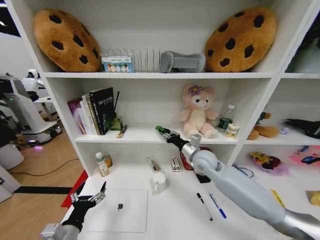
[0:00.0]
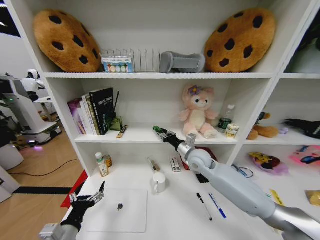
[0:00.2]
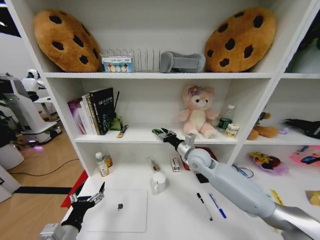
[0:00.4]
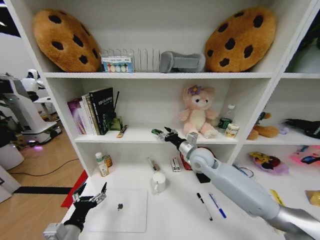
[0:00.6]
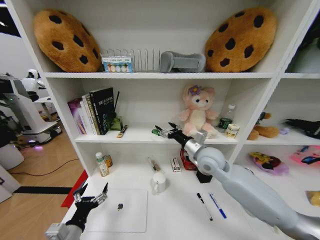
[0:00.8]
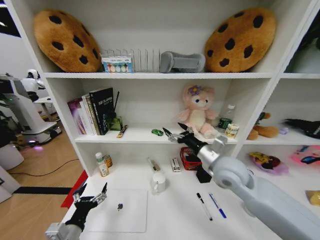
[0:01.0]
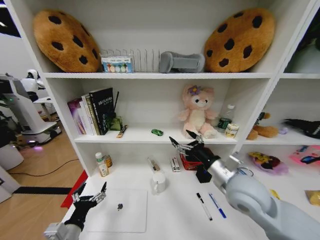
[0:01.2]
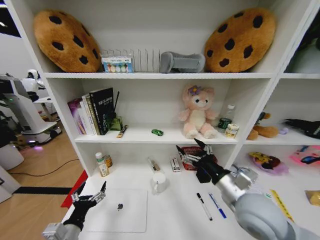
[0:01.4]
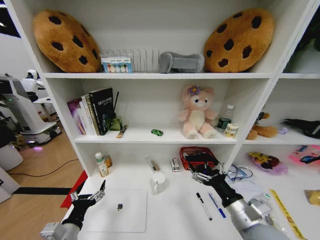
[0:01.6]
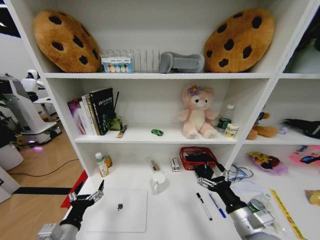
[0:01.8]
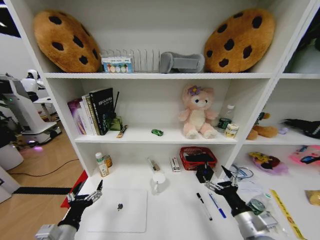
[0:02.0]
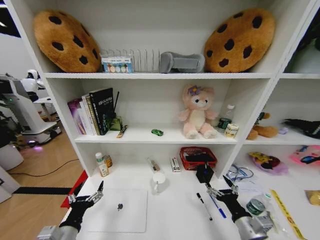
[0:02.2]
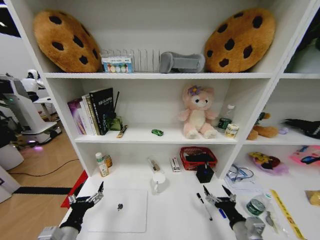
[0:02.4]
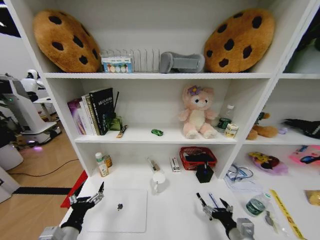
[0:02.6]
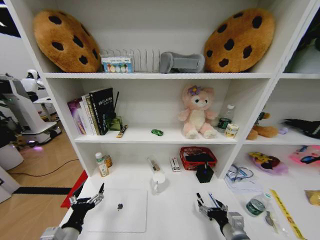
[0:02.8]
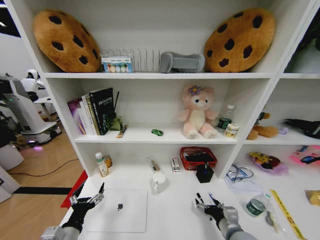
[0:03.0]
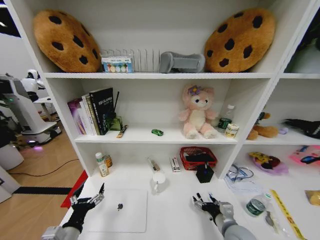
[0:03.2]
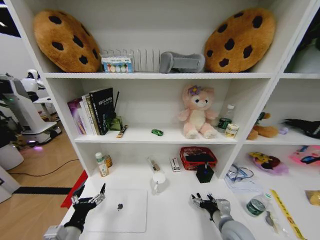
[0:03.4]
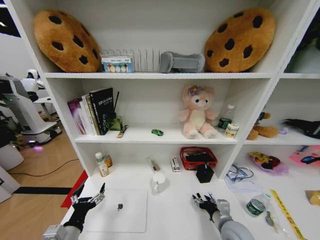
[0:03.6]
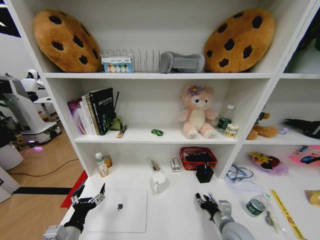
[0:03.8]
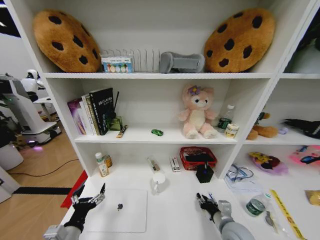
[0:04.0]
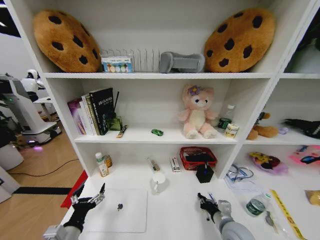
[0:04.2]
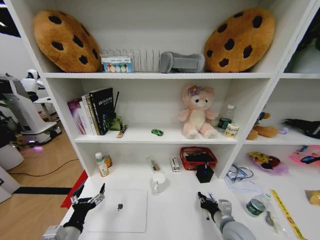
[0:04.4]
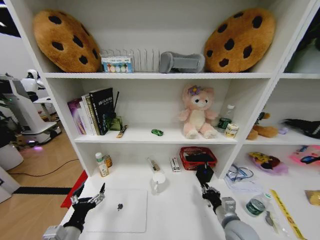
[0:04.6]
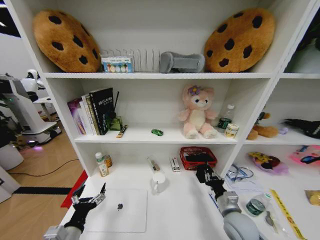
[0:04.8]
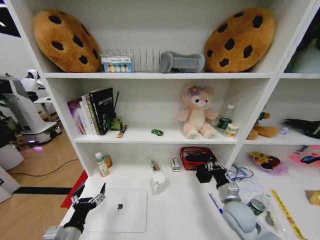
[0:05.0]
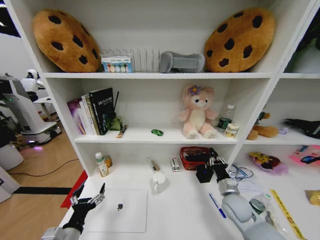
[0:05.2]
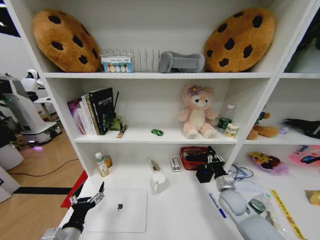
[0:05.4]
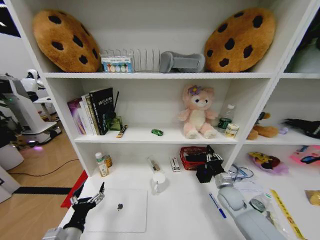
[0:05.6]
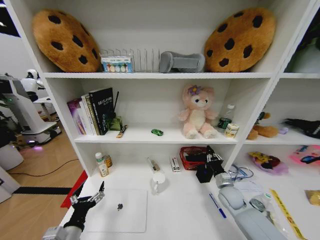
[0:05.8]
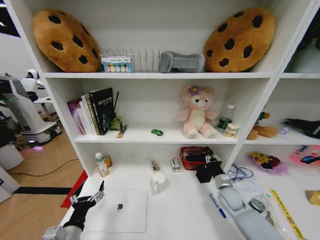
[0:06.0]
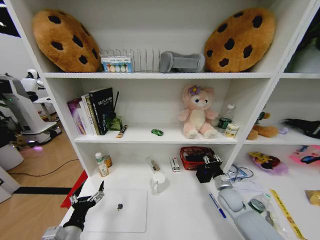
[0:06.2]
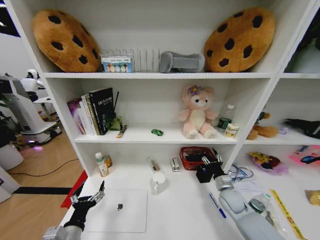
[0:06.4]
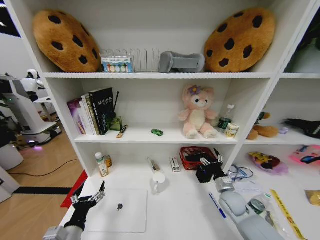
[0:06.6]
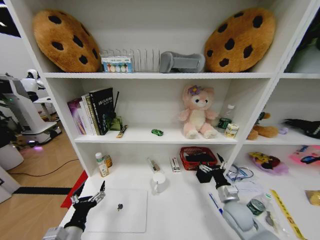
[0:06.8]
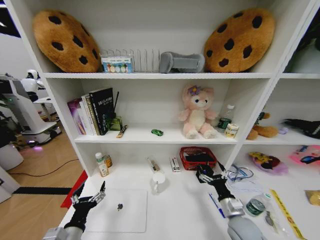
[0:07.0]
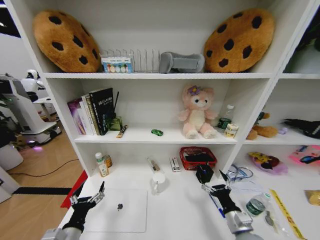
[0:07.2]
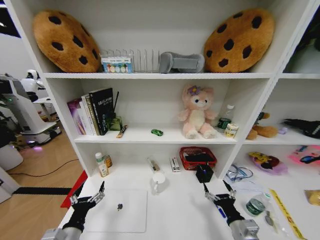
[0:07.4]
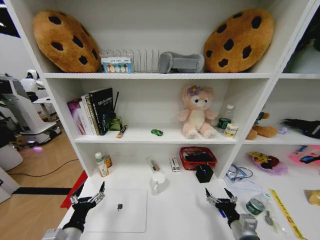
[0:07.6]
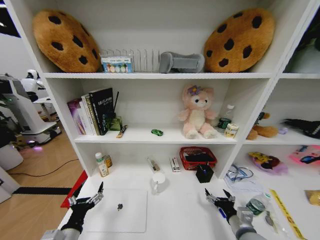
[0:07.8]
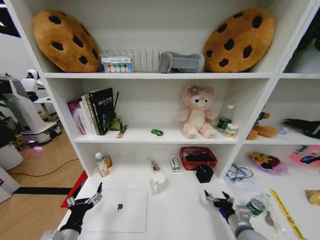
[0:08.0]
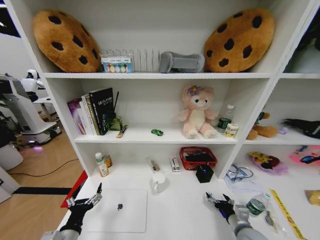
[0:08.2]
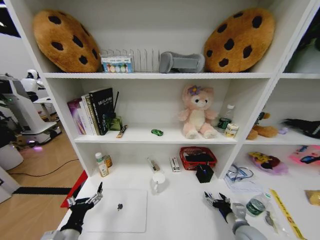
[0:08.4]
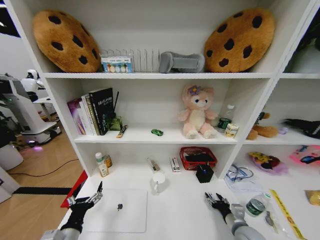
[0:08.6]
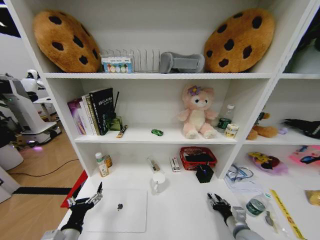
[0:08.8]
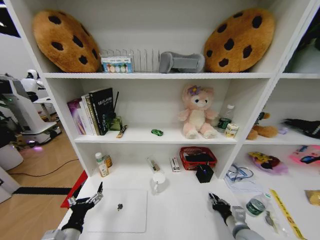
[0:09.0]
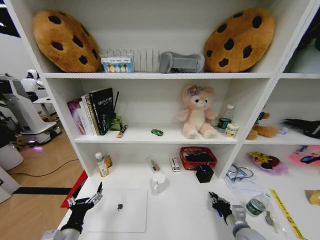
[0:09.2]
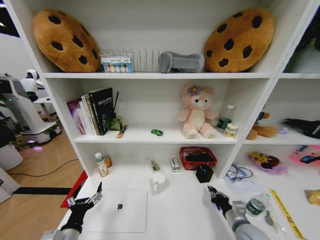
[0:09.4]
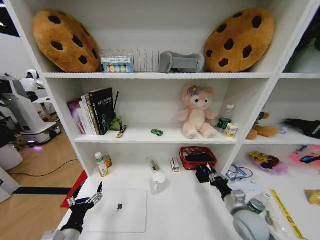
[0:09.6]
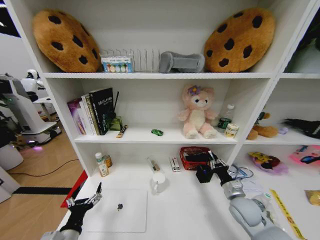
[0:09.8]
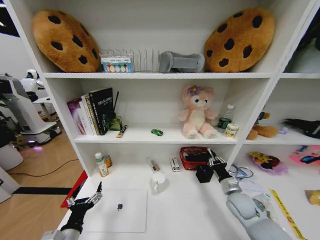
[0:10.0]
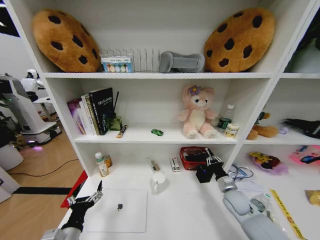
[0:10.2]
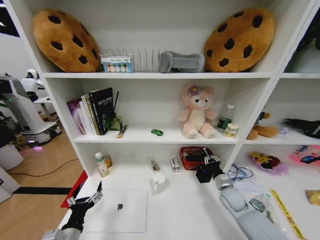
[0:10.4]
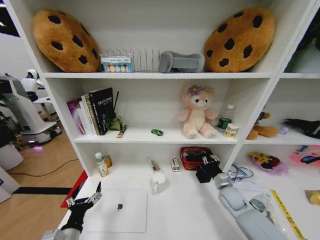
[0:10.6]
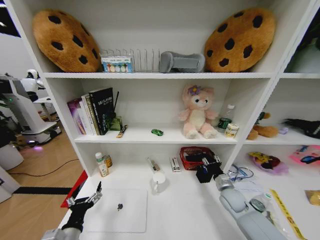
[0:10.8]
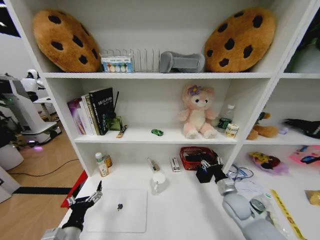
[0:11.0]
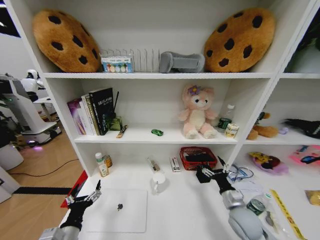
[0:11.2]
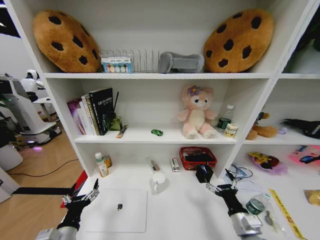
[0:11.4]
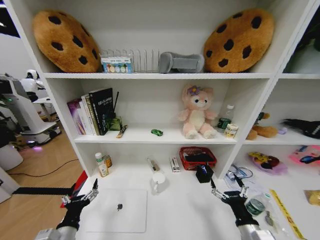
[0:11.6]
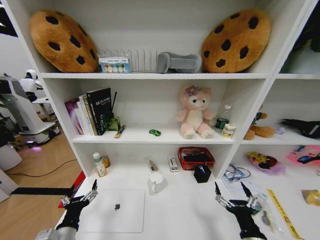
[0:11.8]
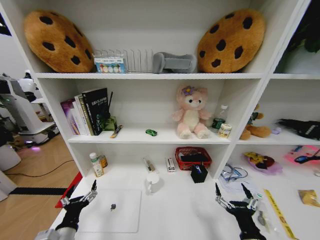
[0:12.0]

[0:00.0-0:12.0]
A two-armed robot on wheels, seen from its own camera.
Task of the whole recording: Organize the objects on the table.
0:00.0 to 0:01.6: The right gripper moves backward, about 25 cm, and opens its fingers.
0:01.6 to 0:03.0: The right gripper moves downward, some 15 cm.
0:03.0 to 0:04.4: The right gripper closes its fingers.
0:04.4 to 0:06.0: The right gripper goes some 15 cm forward and to the right.
0:06.0 to 0:07.6: The right gripper travels backward by about 20 cm, and opens its fingers.
0:07.6 to 0:09.0: The right gripper ends up approximately 5 cm from where it was, and closes its fingers.
0:09.0 to 0:10.4: The right gripper heads forward, covering approximately 15 cm.
0:10.4 to 0:12.0: The right gripper shifts approximately 25 cm backward, and opens its fingers.

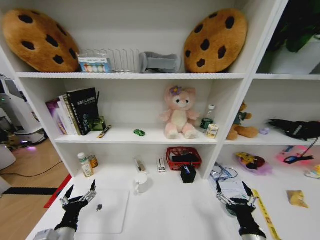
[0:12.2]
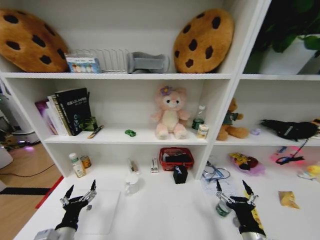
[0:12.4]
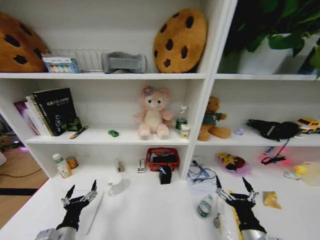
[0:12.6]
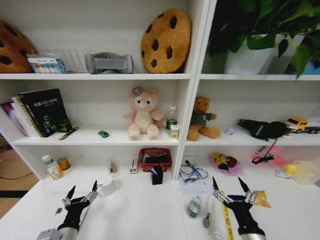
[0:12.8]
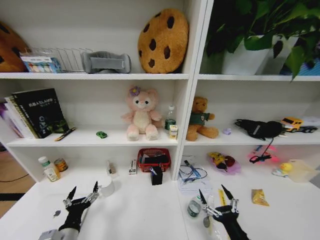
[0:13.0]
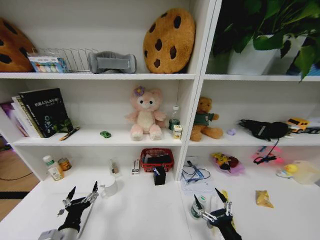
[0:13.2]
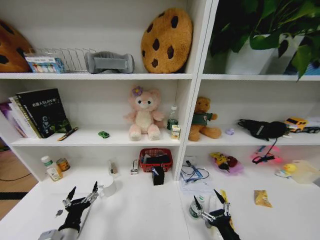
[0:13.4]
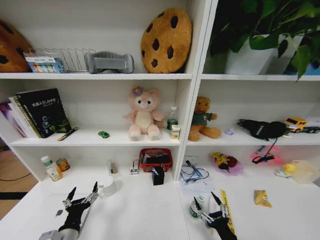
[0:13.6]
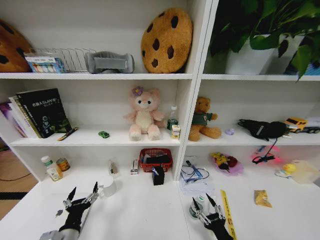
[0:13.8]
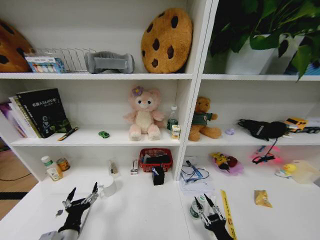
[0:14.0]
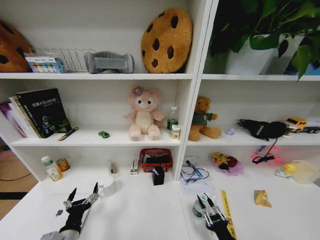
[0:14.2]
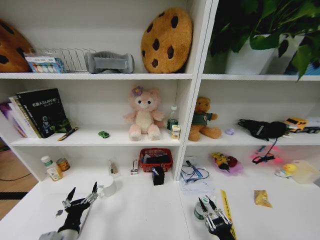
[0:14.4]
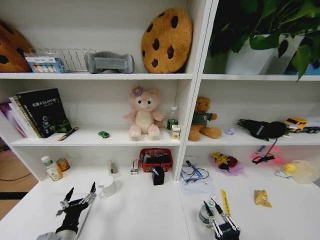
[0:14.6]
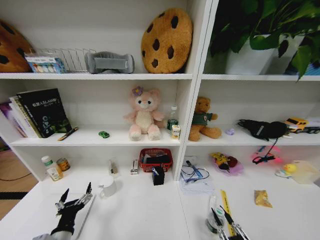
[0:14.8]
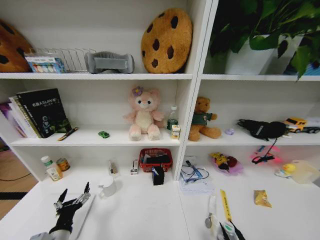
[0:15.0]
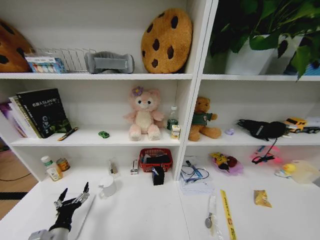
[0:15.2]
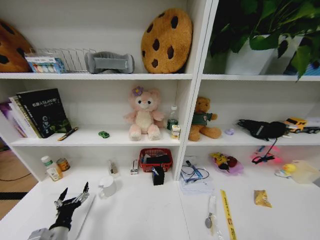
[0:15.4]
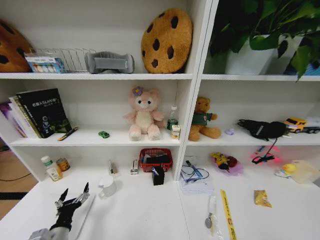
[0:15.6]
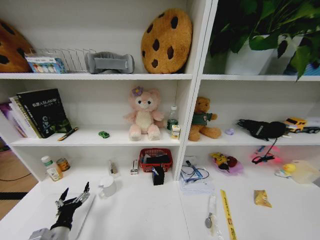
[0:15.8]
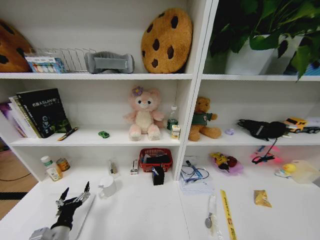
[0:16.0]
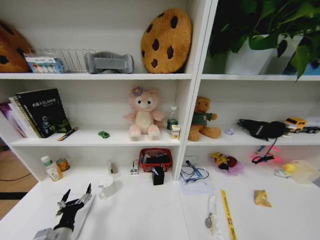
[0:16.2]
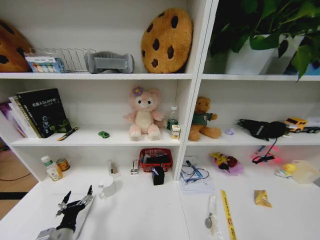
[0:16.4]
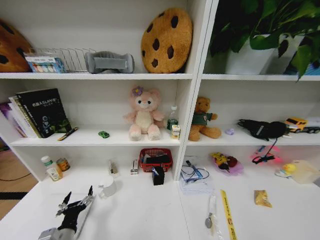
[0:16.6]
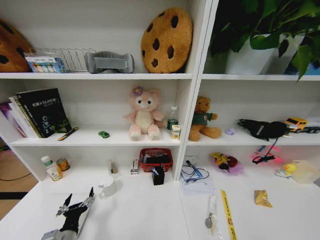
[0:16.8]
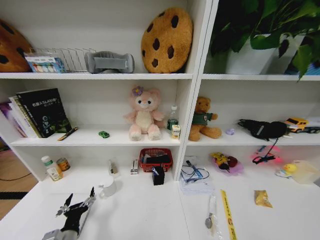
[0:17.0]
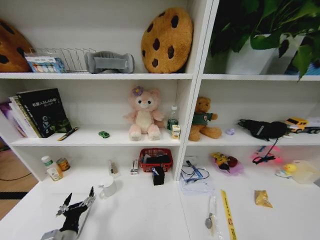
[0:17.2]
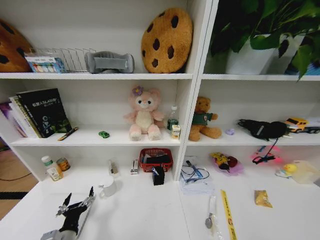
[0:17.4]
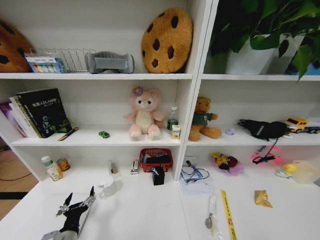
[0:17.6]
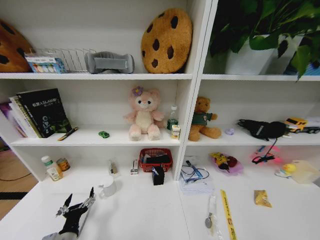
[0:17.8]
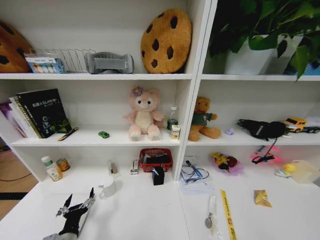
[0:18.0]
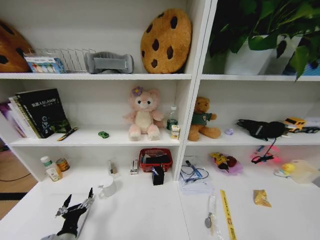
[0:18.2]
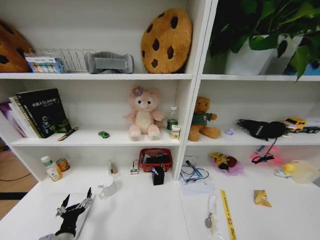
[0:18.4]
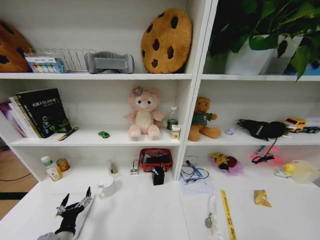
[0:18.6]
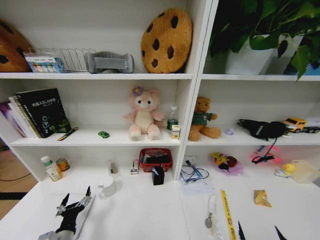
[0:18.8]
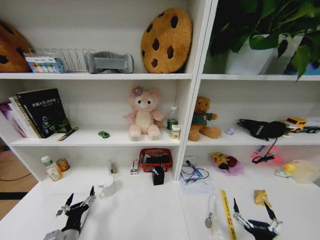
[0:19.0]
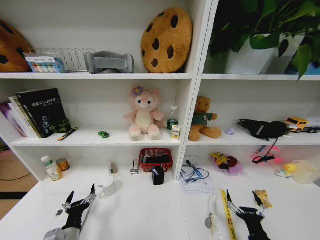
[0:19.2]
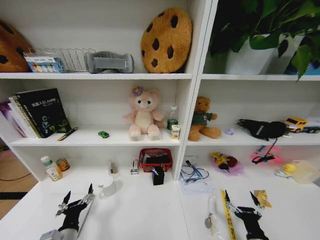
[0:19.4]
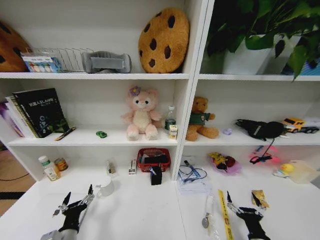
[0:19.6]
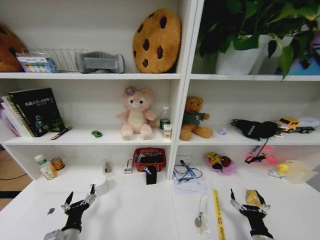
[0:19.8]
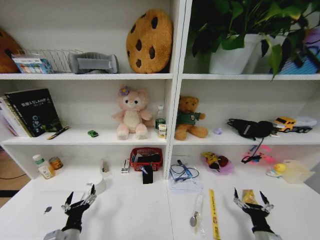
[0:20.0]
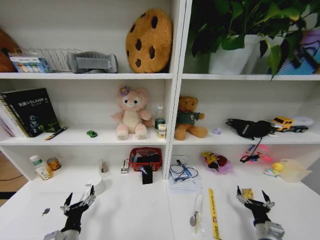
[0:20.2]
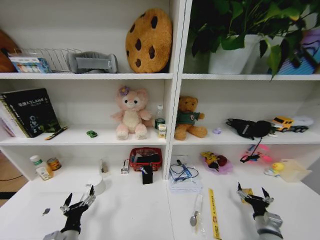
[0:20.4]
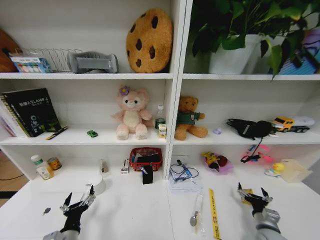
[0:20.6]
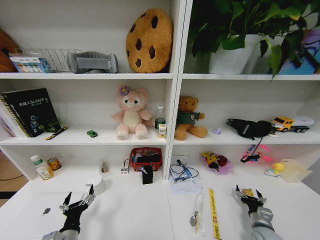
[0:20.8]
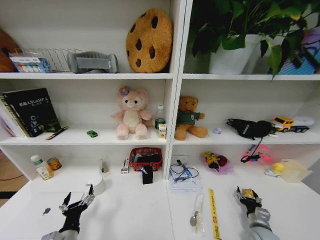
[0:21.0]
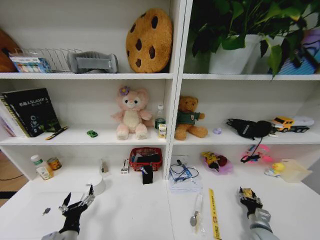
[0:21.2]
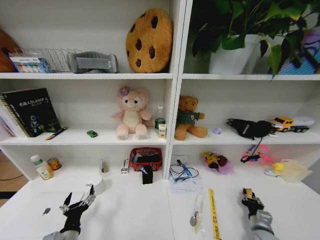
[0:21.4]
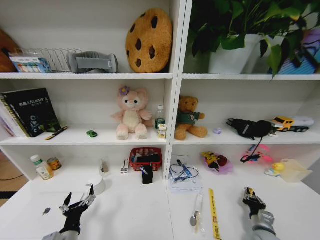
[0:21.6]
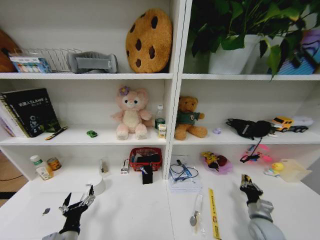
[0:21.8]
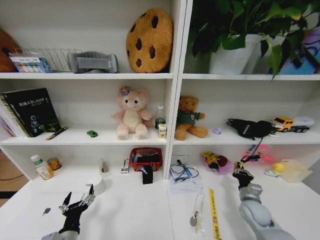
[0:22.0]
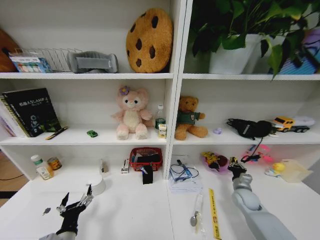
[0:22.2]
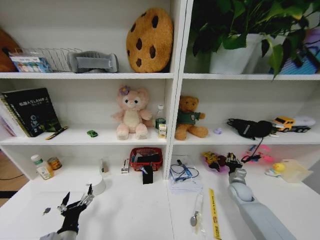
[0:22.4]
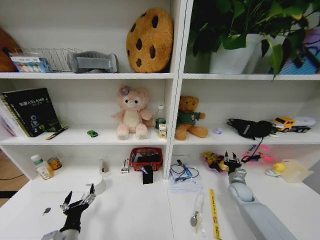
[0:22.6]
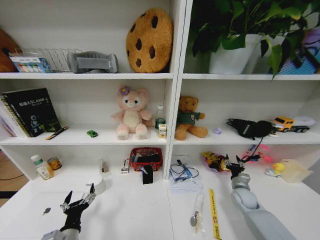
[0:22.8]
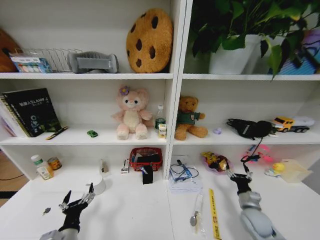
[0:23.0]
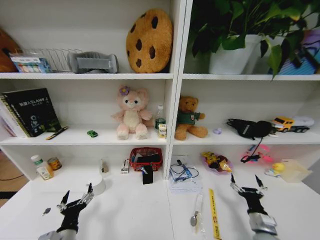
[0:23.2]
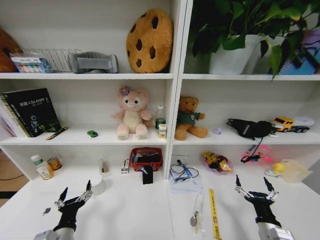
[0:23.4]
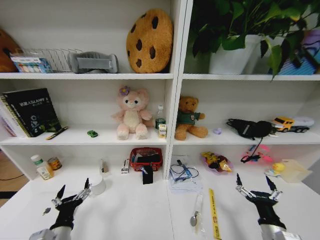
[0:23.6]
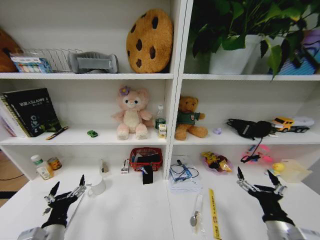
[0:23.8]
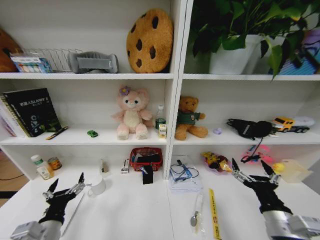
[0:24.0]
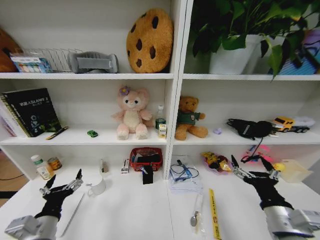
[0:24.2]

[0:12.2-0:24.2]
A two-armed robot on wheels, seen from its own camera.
Task of the whole recording: Organize the objects on the table.
0:12.2 to 0:13.8: The right gripper moves downward, some 5 cm.
0:13.8 to 0:15.2: The right gripper travels backward and upward by about 20 cm, and closes.
0:16.6 to 0:18.2: The right gripper goes roughly 20 cm upward and backward, and opens its fingers.
0:18.2 to 0:19.8: The right gripper travels forward by roughly 30 cm.
0:19.8 to 0:21.2: The right gripper shifts approximately 10 cm forward and to the right, and closes.
0:21.2 to 0:22.6: The right gripper moves forward, roughly 15 cm.
0:22.6 to 0:24.2: The left gripper is displaced upward by about 10 cm. Meanwhile the right gripper travels backward, upward and to the left by roughly 35 cm, and opens.
